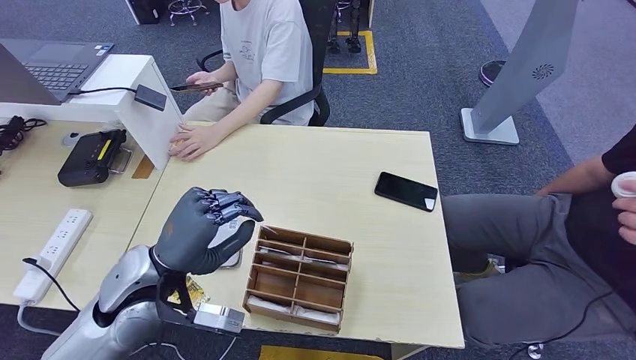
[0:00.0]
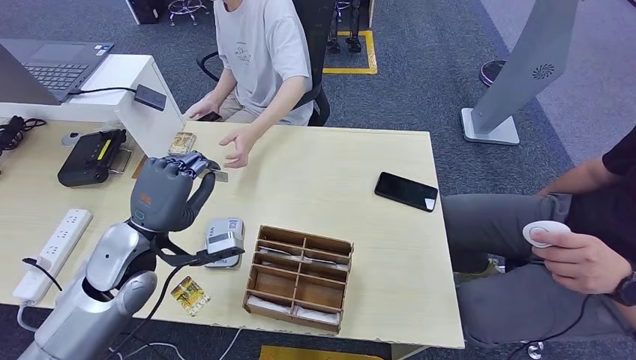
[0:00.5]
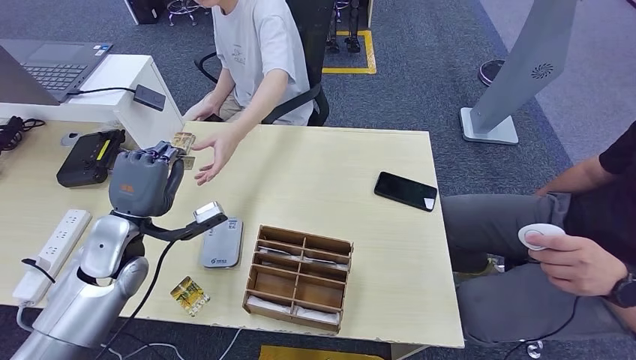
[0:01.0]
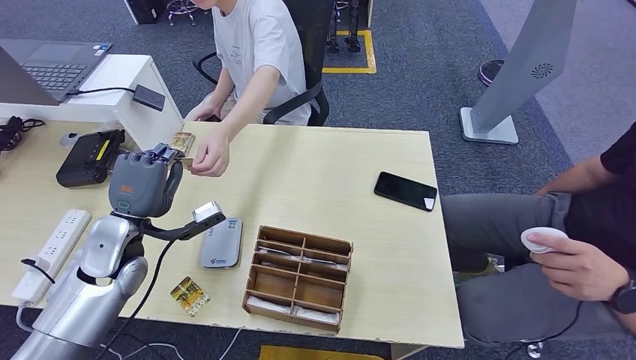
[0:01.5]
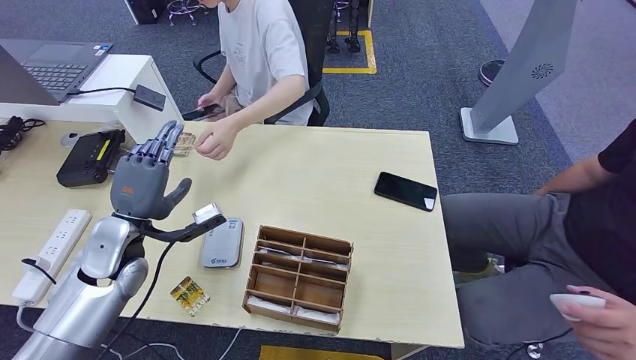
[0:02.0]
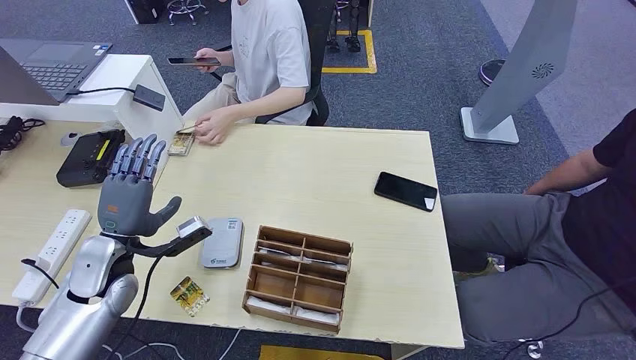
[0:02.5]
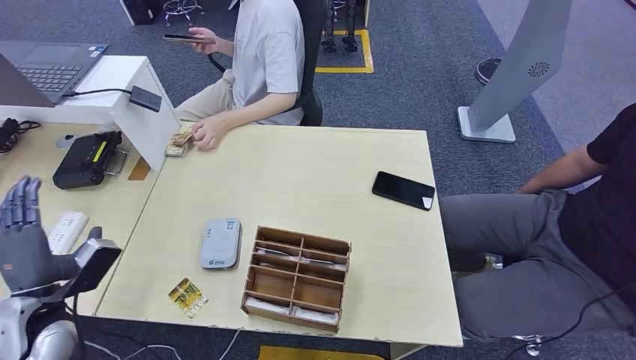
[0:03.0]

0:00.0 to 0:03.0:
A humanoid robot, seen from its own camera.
Step, 0:01.0 to 0:03.0: Hand the room key to the person.
0:00.0 to 0:01.5: The left hand travels to the left and forward by approximately 10 cm.
